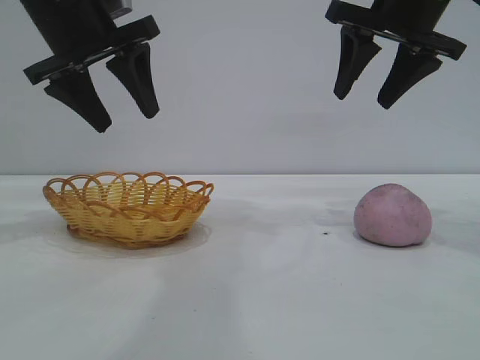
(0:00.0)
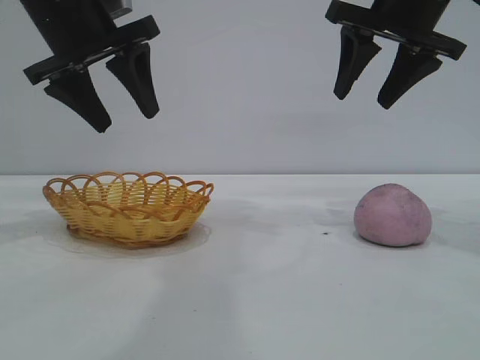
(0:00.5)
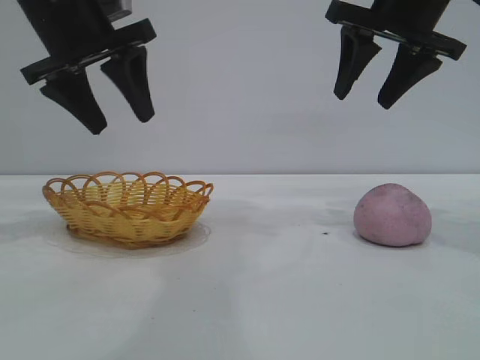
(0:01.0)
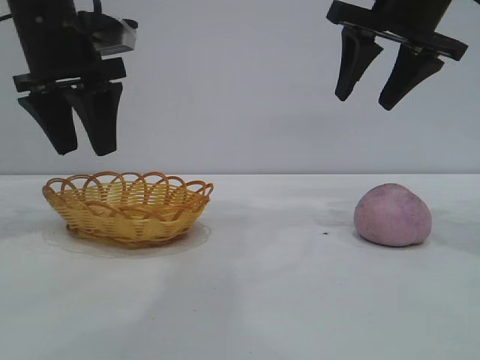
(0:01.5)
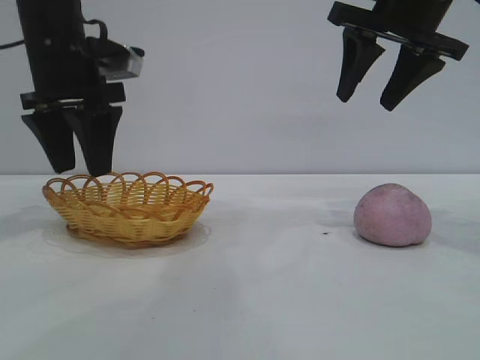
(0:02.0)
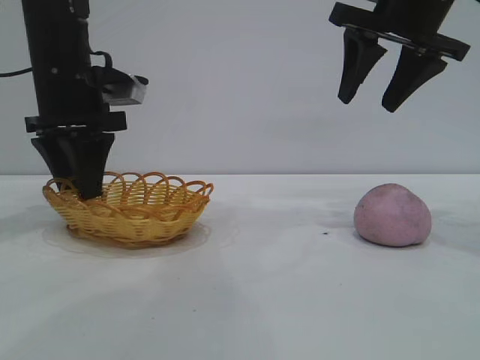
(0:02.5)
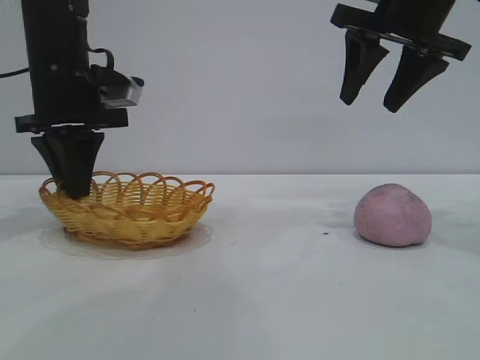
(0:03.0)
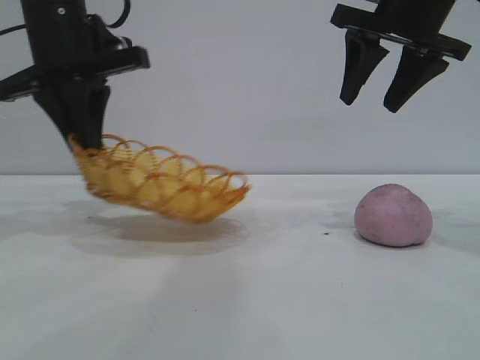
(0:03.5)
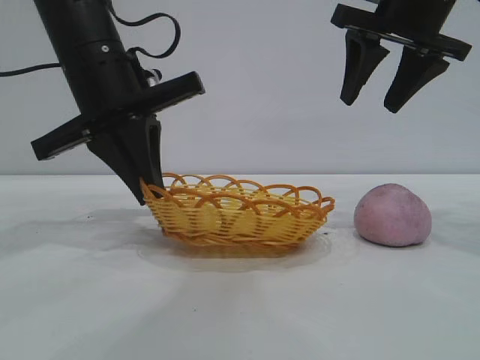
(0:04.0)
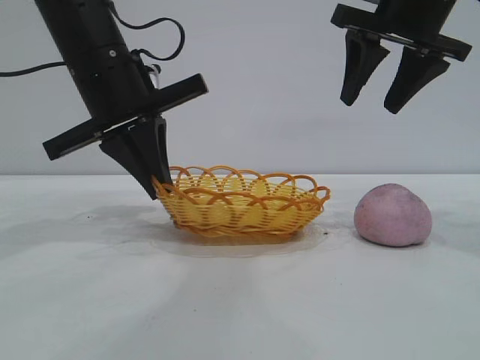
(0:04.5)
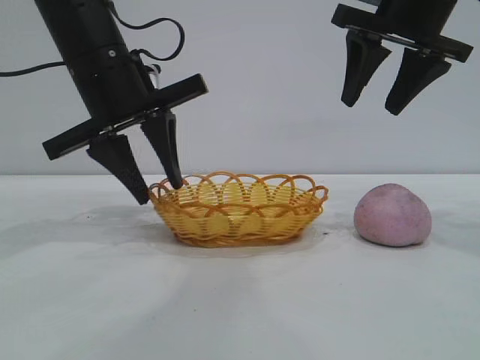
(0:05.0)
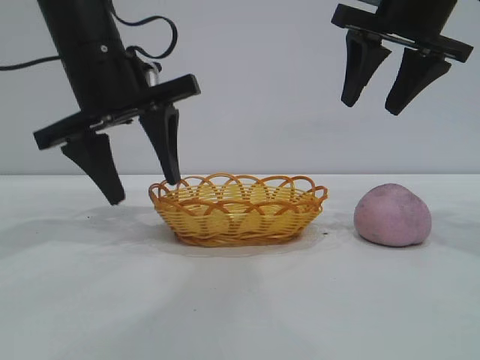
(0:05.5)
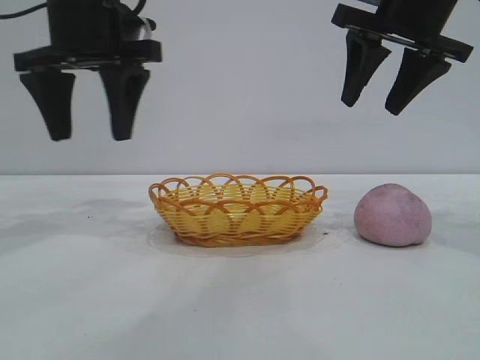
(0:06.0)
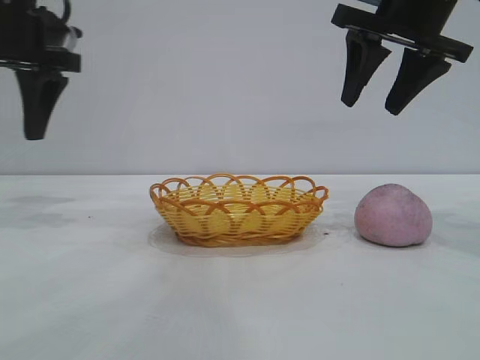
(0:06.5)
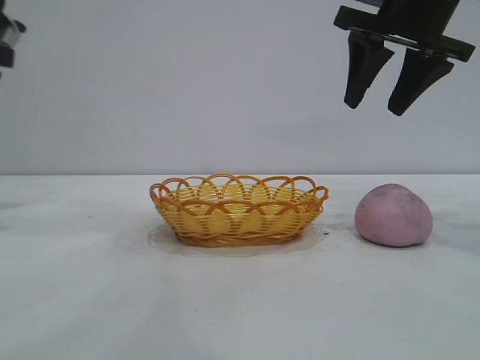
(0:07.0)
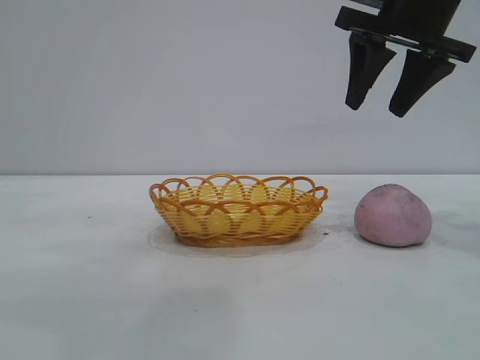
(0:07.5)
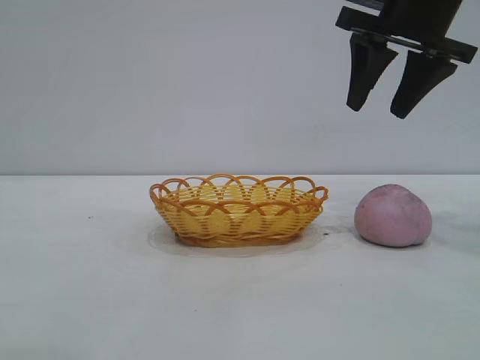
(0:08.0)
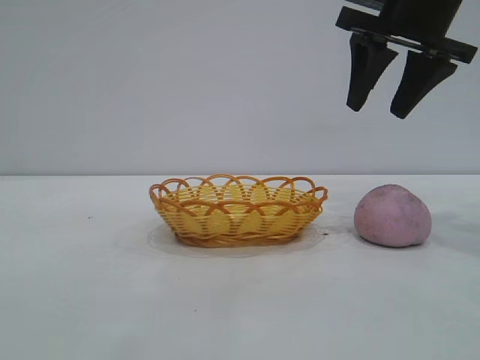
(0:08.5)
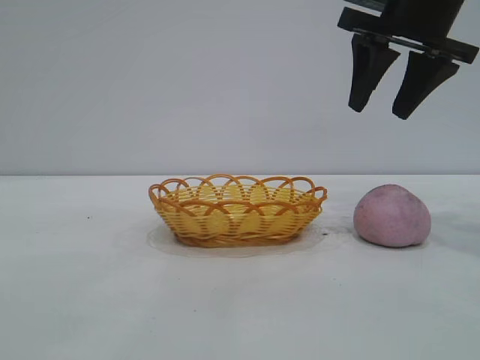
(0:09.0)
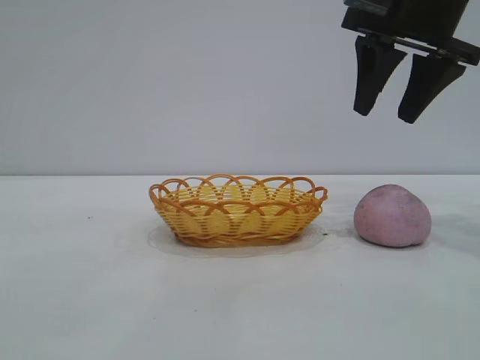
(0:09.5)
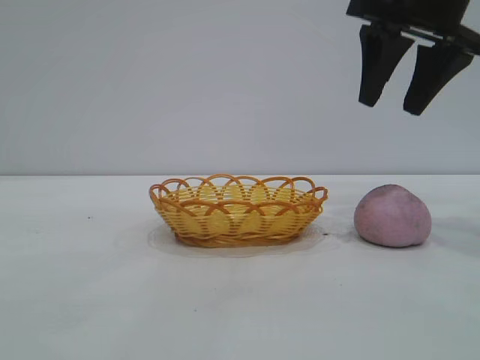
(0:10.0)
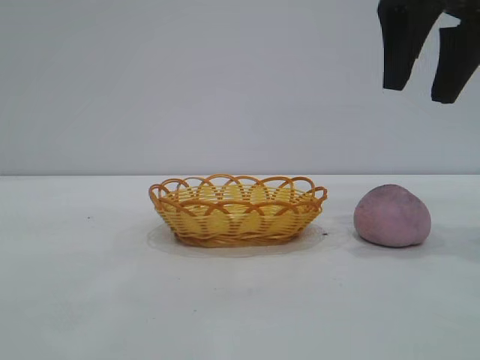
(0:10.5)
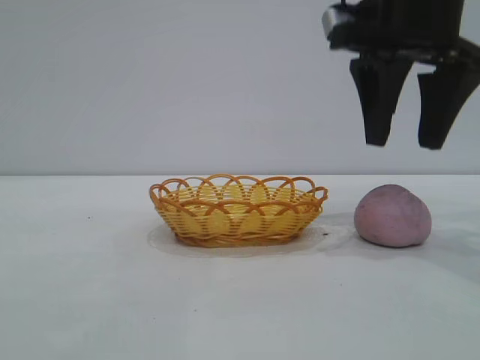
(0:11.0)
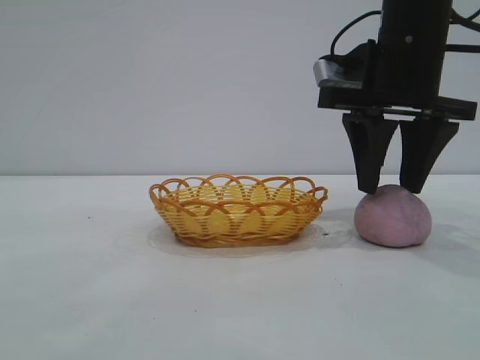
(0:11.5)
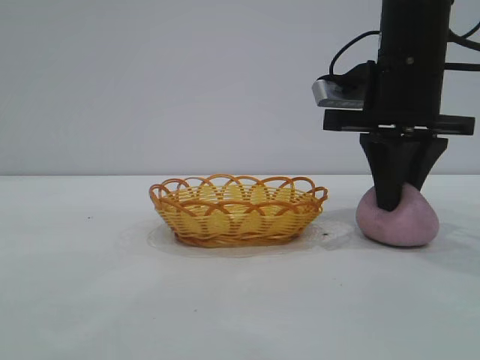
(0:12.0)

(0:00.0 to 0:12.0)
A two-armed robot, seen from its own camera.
Task of the whole recording: pick up the peach and put it into the basket.
Step, 0:00.0 - 0:06.0: Move the basket to the center of view.

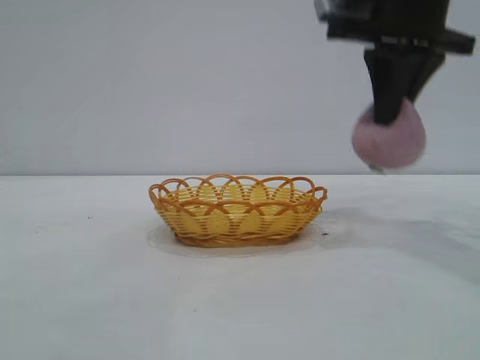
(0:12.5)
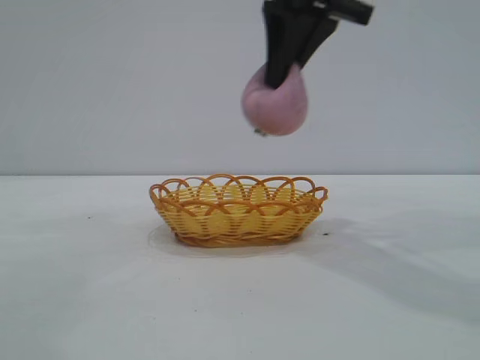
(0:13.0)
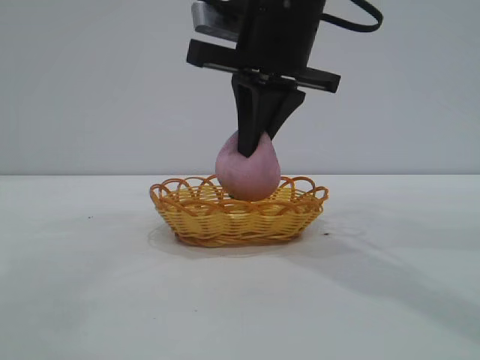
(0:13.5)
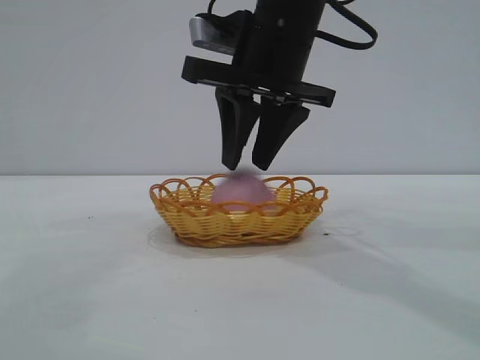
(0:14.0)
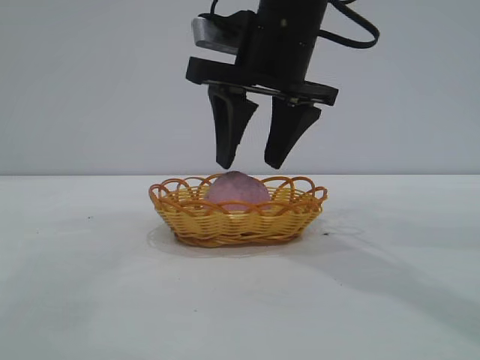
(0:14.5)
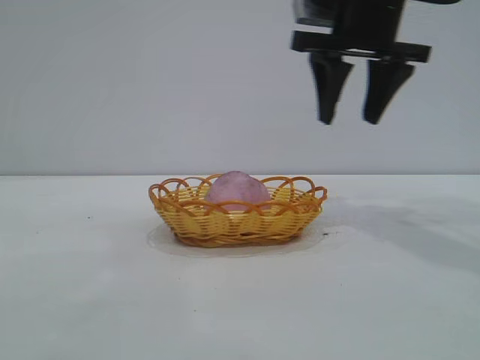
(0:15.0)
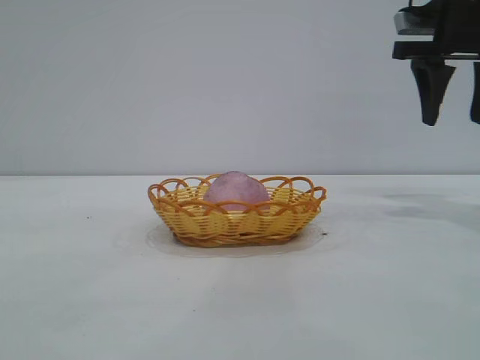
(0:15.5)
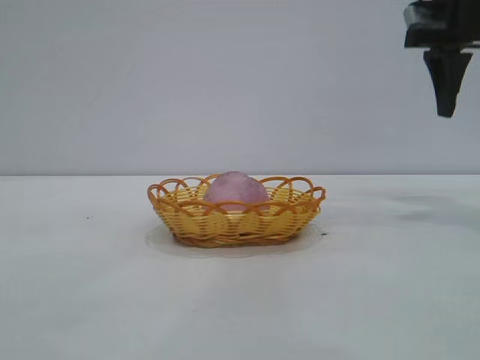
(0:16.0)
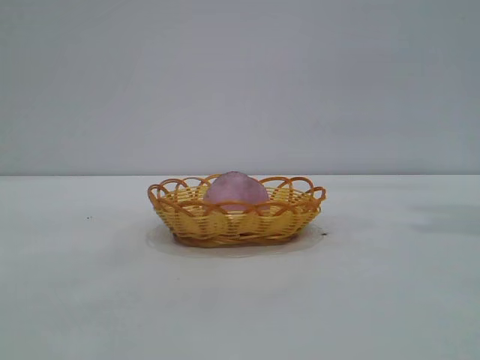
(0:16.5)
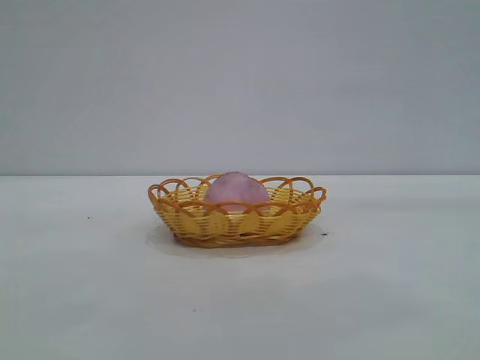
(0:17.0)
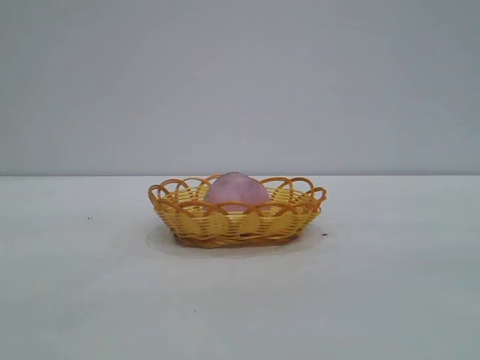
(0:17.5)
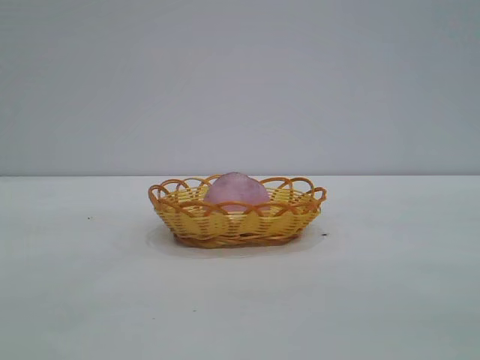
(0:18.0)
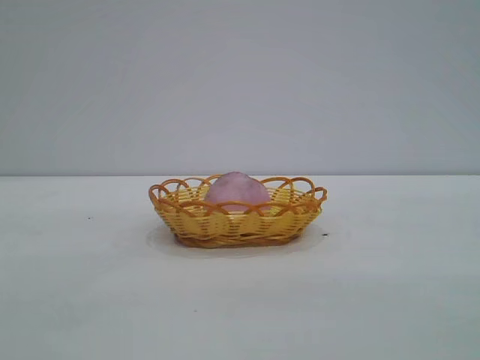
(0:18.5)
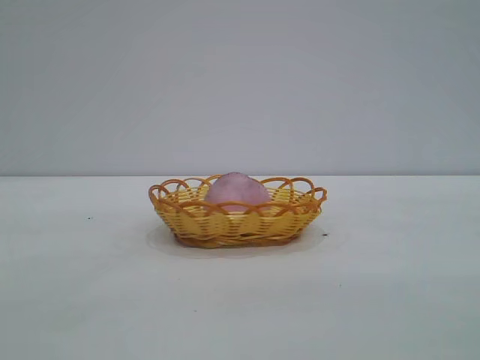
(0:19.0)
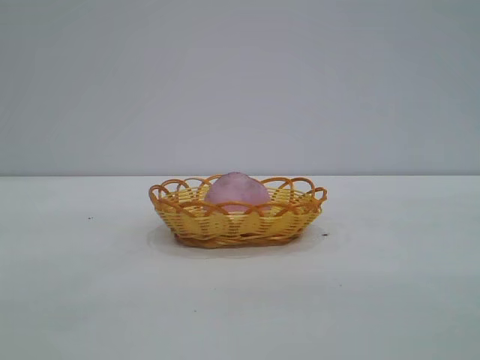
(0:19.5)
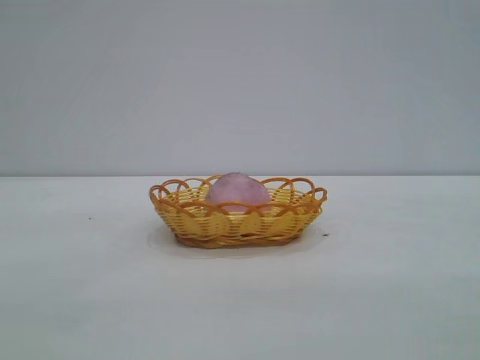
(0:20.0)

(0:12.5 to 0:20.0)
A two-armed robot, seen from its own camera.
Task of the whole recording: pick up the peach and put it into the basket.
Step, 0:13.0 - 0:14.5: place the peach into the basket.

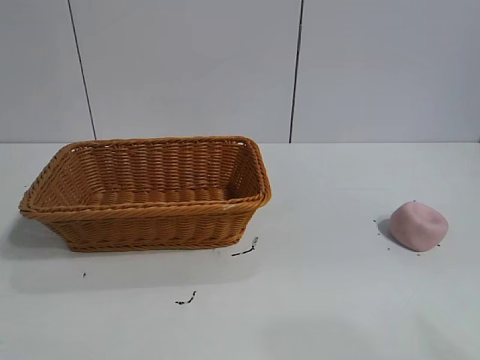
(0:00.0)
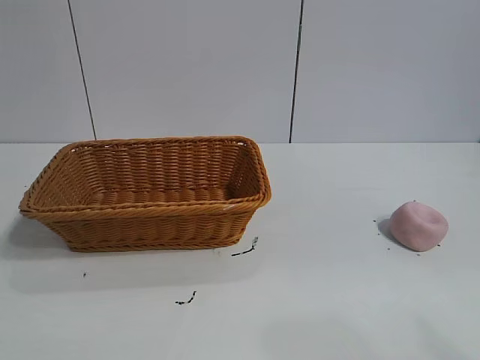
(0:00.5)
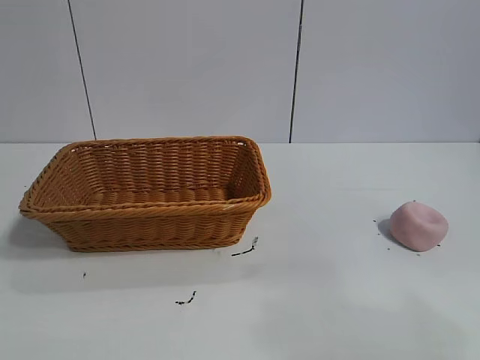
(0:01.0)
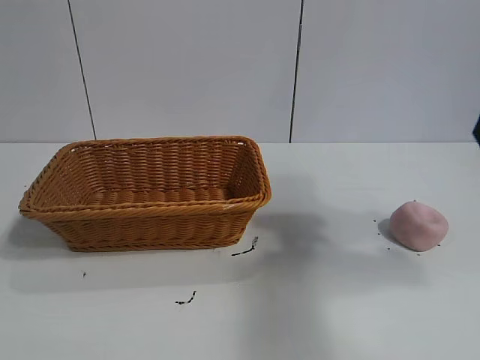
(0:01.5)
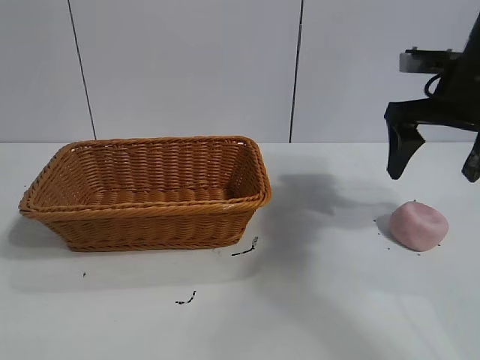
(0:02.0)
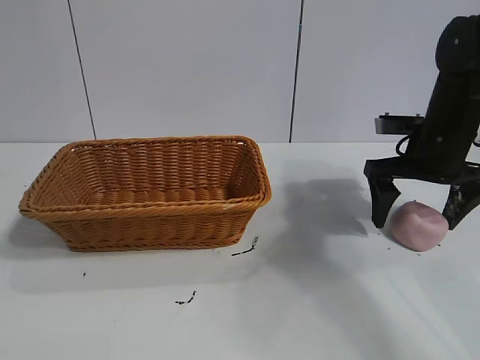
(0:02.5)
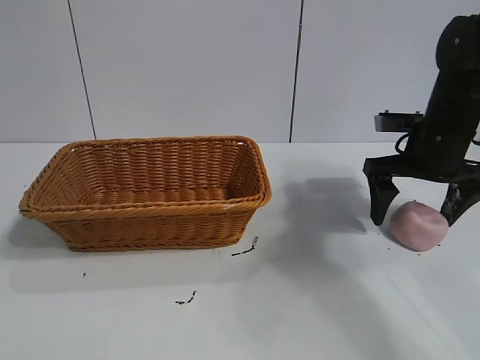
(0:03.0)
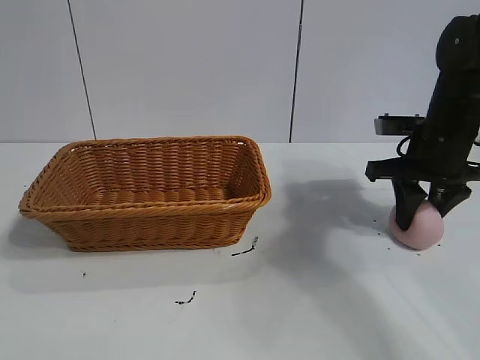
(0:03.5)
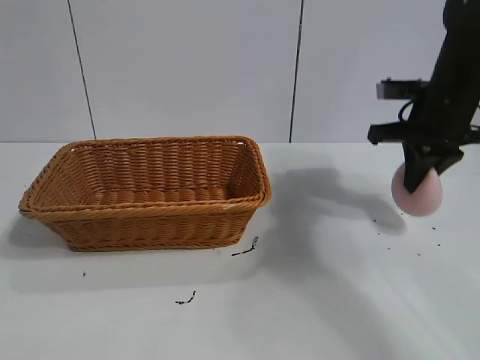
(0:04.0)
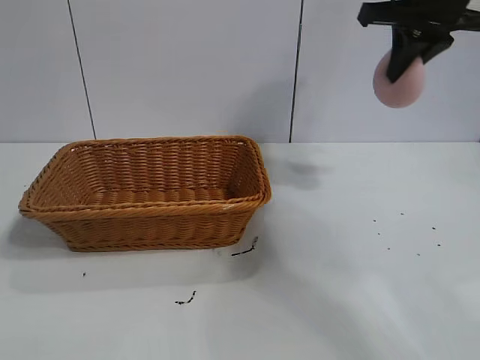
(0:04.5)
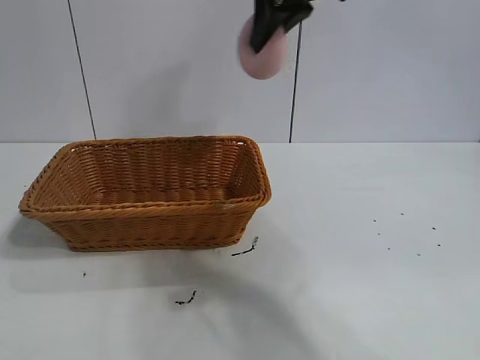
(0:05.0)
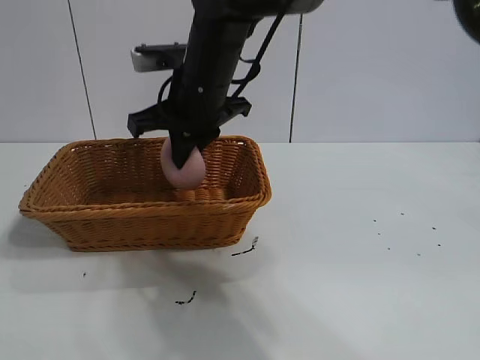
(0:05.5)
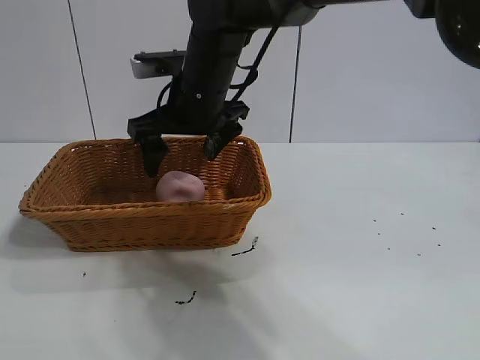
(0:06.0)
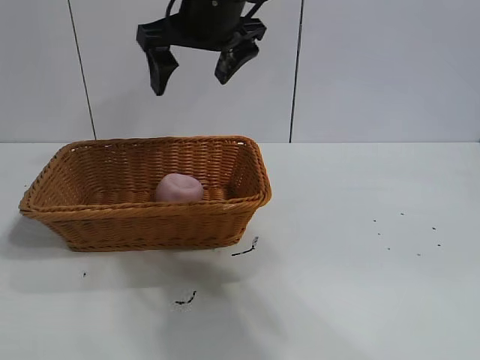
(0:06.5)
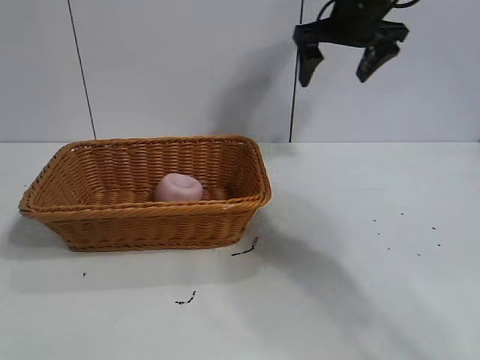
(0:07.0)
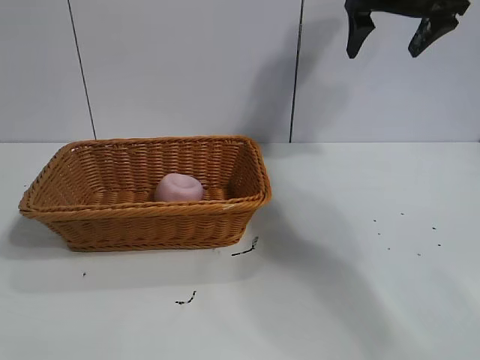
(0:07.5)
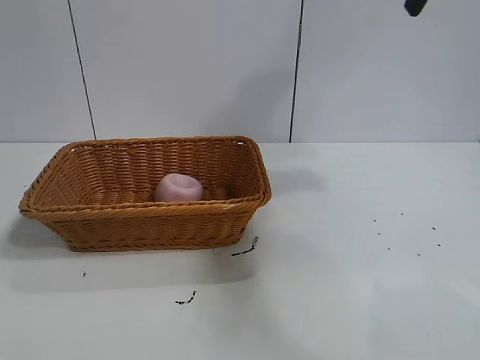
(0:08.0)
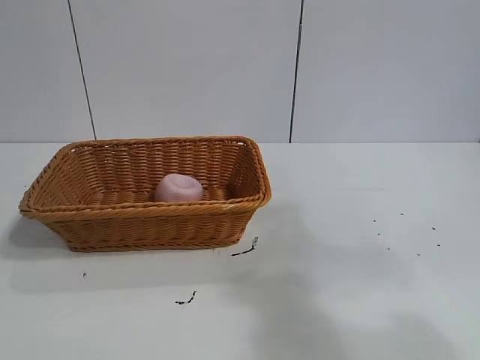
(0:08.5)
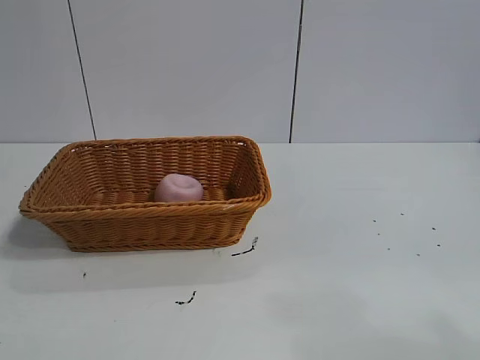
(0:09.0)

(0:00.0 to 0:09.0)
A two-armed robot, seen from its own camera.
Task of the whole recording: pick up the peach and put it into the basket.
Step, 0:01.0 - 0:03.5: Grasp the peach with right gripper.
Step, 0:04.0 - 0:06.0: Place the peach in the basket with right gripper.
